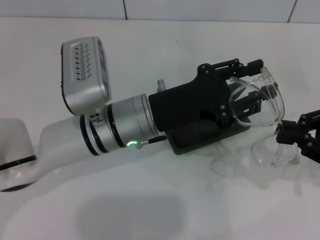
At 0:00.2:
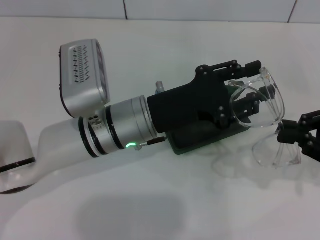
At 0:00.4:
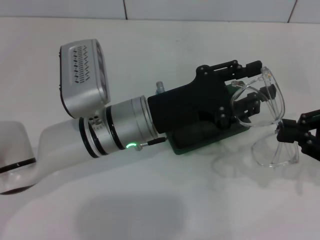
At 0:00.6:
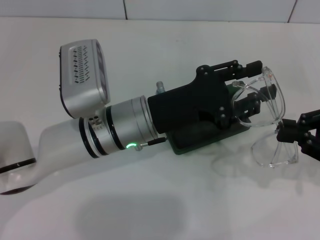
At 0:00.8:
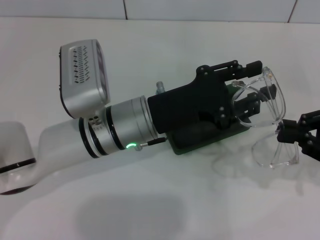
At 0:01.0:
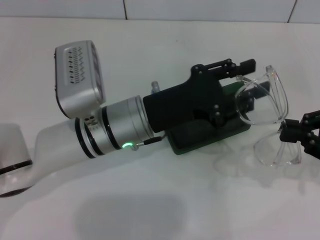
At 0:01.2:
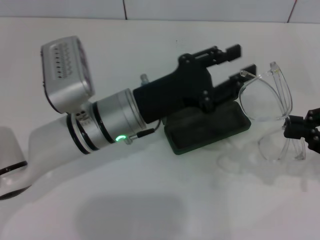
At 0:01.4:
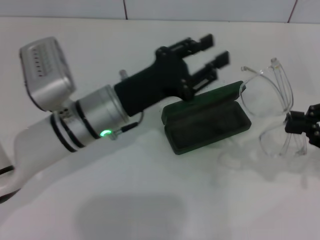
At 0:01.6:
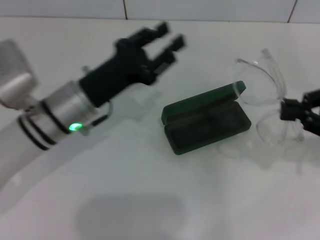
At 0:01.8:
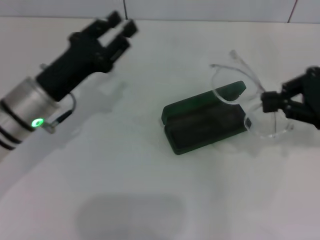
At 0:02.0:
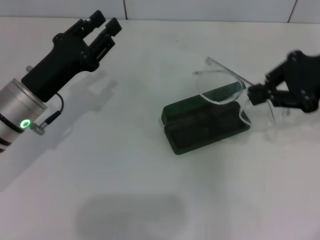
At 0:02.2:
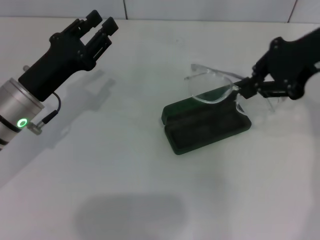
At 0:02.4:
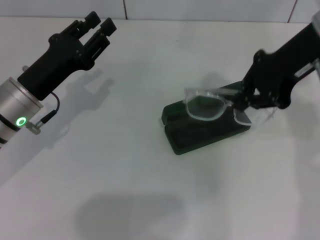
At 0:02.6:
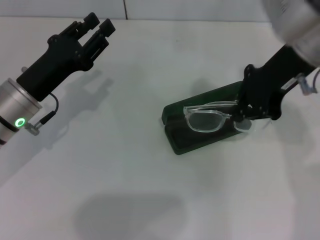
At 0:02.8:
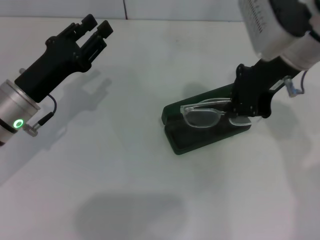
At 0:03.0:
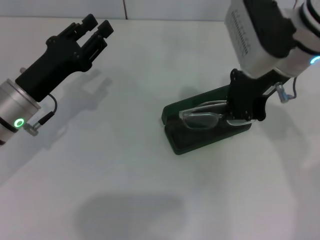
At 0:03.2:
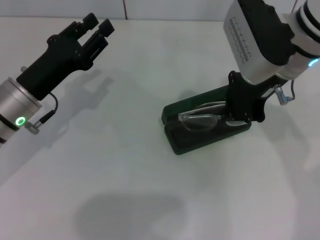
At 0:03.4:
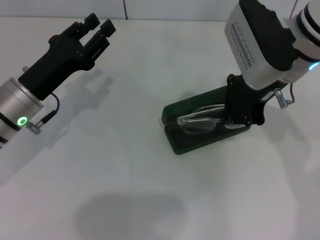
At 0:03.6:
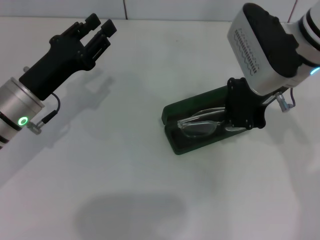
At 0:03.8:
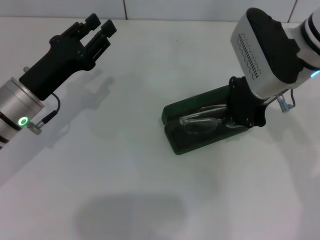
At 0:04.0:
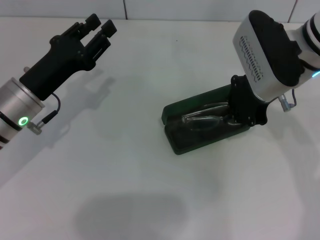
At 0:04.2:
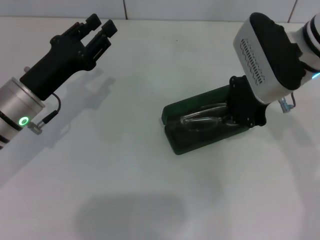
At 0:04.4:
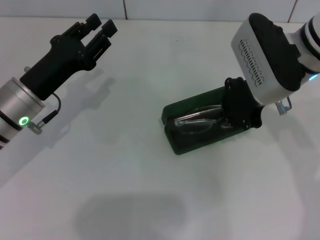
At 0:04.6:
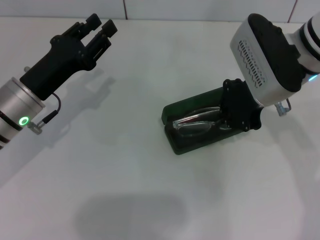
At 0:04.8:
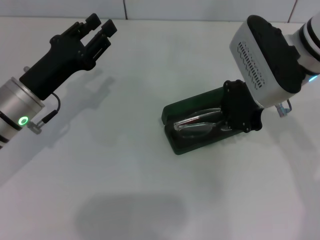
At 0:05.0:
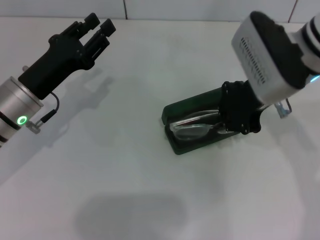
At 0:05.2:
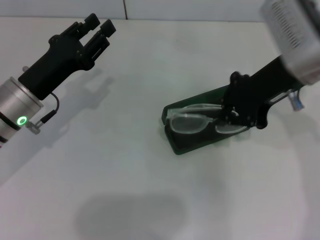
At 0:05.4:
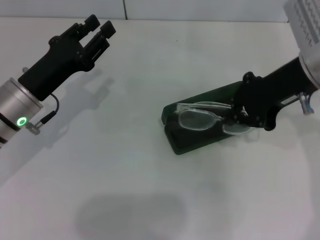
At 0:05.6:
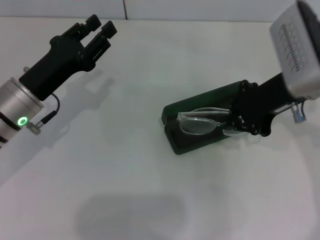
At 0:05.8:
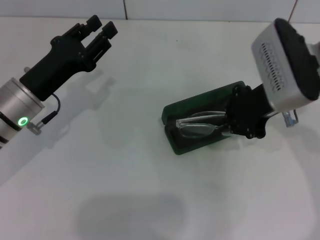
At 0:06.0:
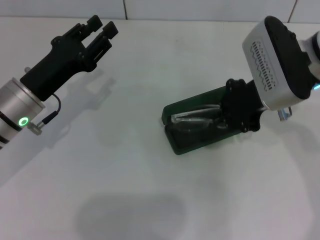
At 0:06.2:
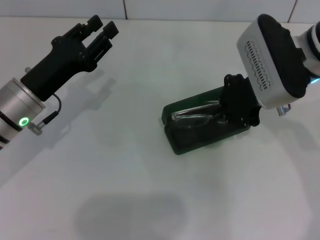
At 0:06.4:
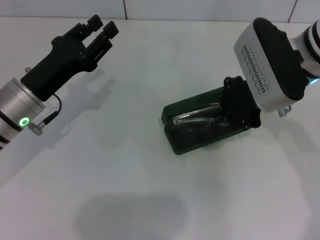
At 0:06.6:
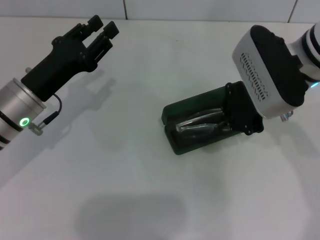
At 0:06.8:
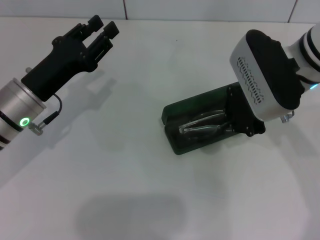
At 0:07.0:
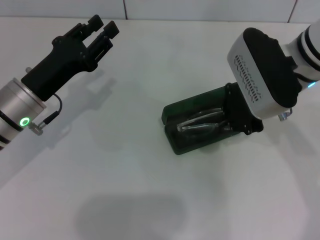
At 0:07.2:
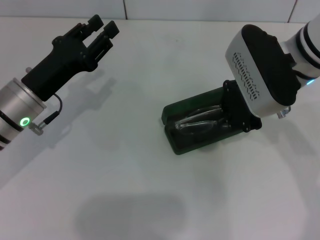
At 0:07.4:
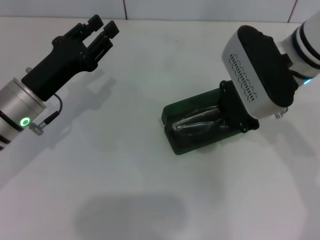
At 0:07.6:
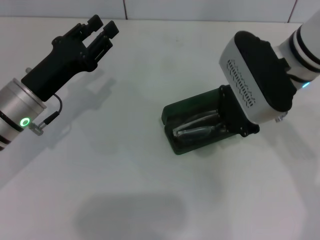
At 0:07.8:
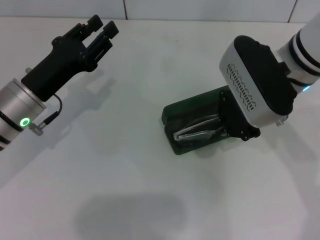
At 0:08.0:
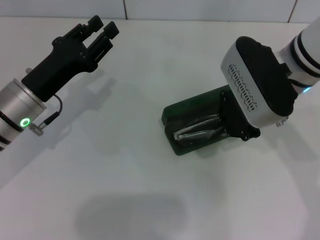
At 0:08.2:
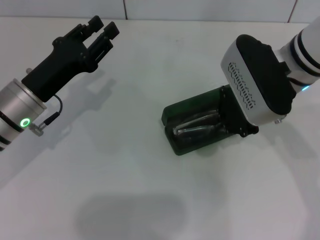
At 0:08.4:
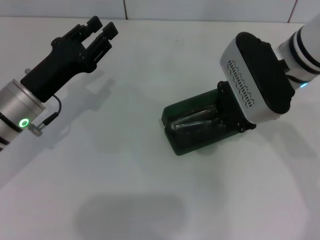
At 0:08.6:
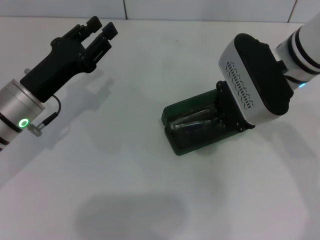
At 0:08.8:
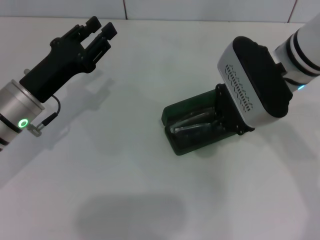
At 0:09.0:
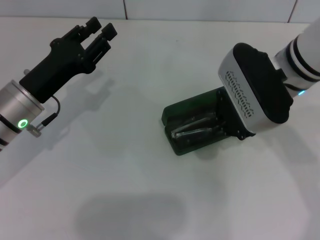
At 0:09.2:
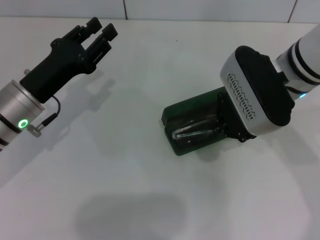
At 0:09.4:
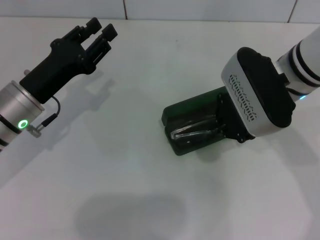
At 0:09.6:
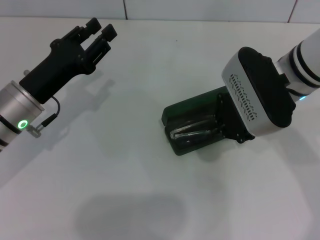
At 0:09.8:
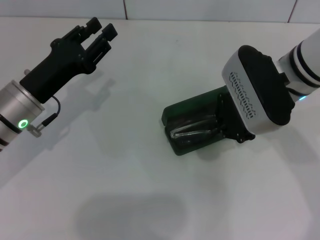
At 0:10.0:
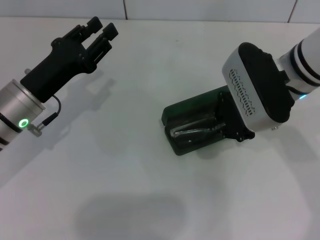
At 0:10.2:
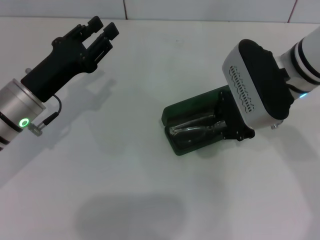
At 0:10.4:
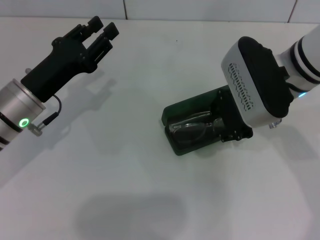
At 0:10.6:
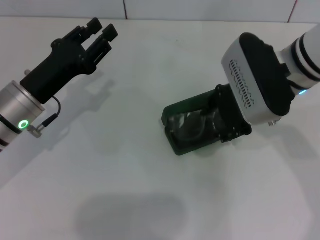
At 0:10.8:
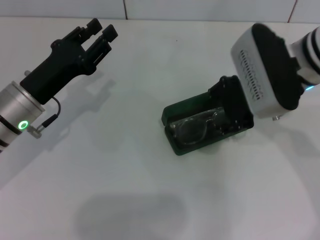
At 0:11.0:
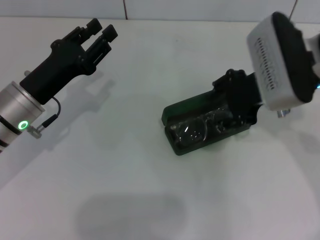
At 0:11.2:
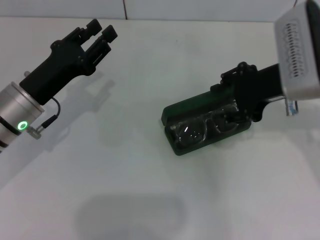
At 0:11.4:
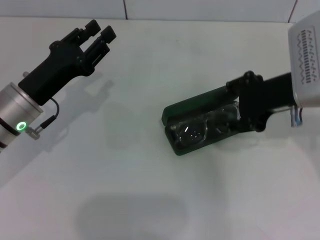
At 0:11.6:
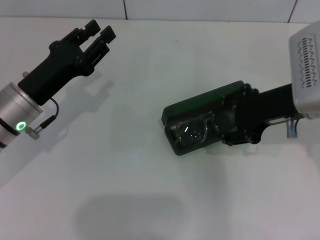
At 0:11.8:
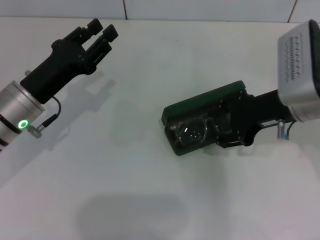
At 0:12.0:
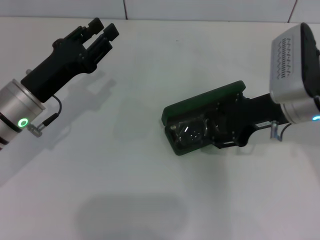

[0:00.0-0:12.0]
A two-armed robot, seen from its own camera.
0:00.0 to 0:01.6: The left gripper goes about 10 cm to the left.
0:01.6 to 0:03.0: The right gripper is displaced to the left and forward by approximately 20 cm; the left gripper shifts roughly 5 cm to the left.
0:03.0 to 0:07.6: There are only small adjustments of the grippers.
0:07.6 to 0:09.0: Neither gripper changes place.
0:09.0 to 0:10.4: The grippers stay close to where they were, moving slightly.
0:10.4 to 0:12.0: The right gripper changes place by about 5 cm, and opens up.

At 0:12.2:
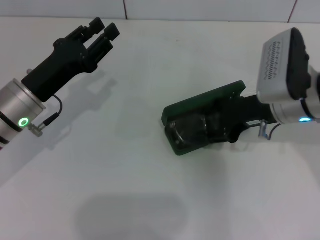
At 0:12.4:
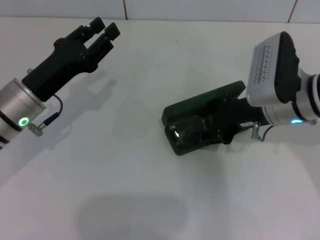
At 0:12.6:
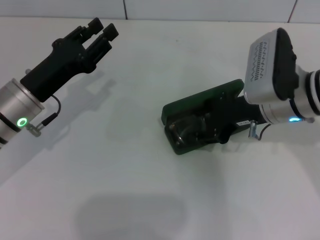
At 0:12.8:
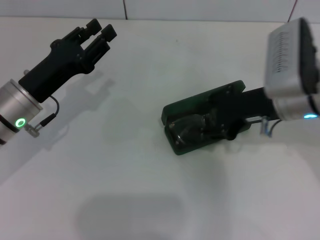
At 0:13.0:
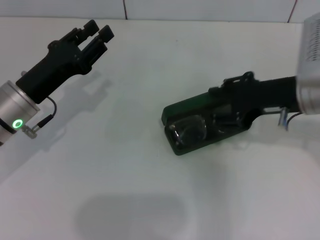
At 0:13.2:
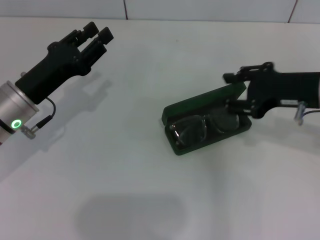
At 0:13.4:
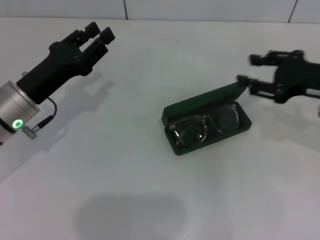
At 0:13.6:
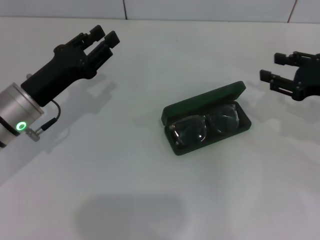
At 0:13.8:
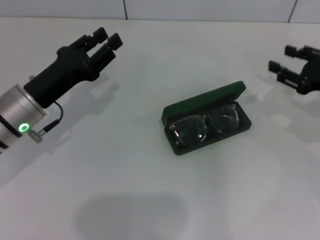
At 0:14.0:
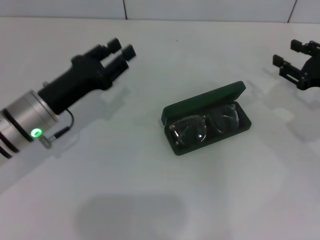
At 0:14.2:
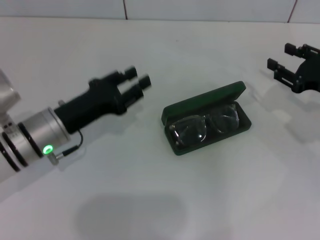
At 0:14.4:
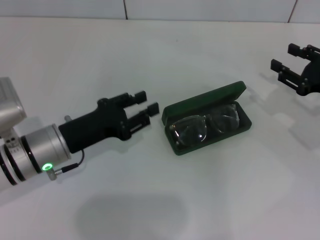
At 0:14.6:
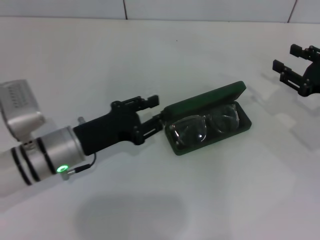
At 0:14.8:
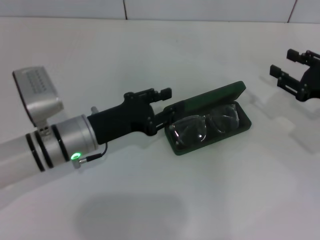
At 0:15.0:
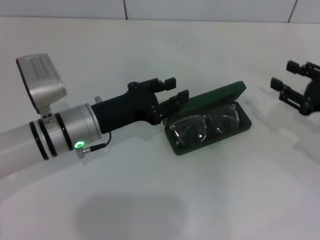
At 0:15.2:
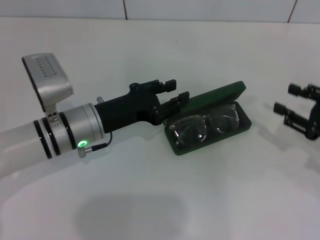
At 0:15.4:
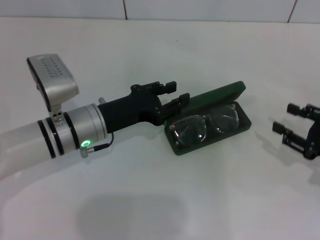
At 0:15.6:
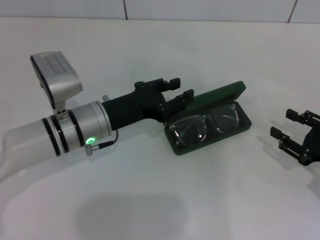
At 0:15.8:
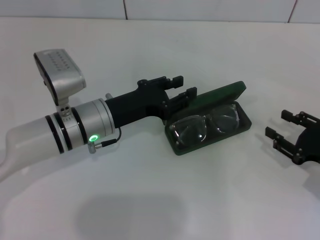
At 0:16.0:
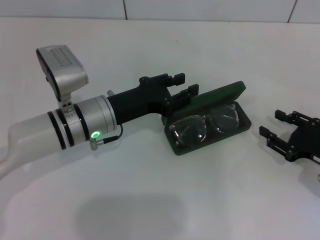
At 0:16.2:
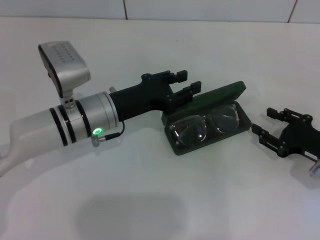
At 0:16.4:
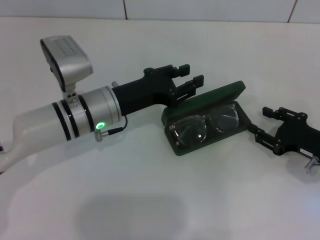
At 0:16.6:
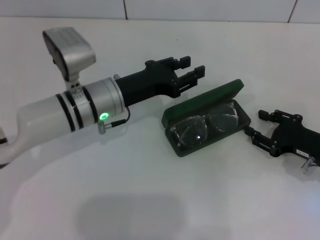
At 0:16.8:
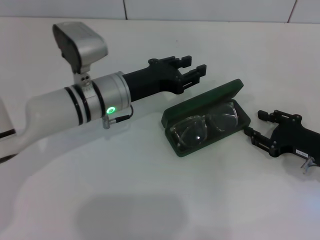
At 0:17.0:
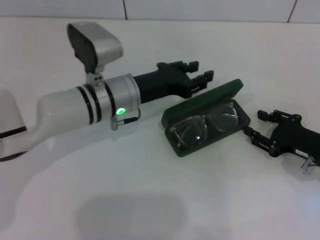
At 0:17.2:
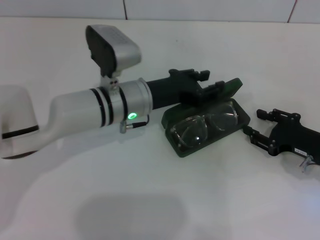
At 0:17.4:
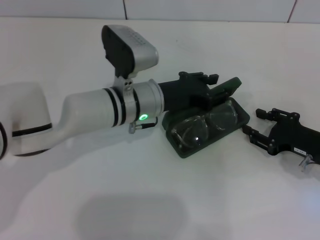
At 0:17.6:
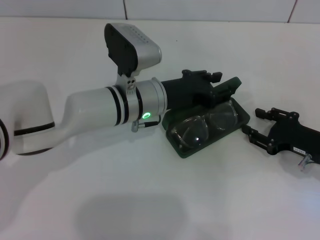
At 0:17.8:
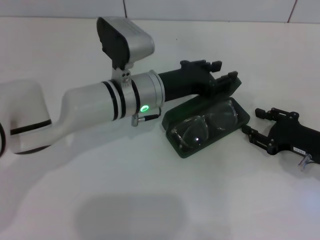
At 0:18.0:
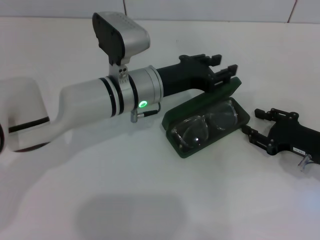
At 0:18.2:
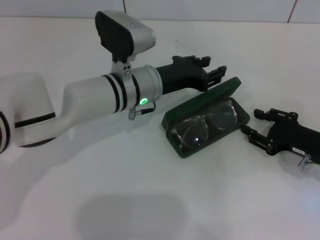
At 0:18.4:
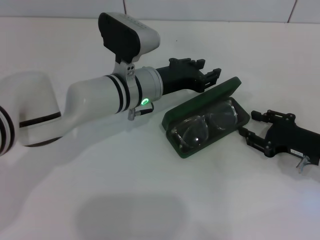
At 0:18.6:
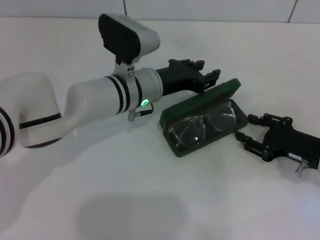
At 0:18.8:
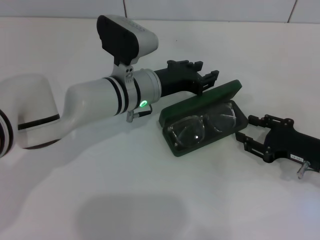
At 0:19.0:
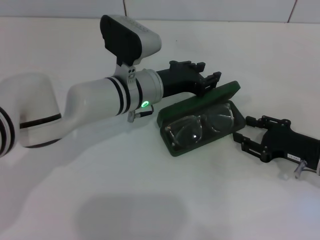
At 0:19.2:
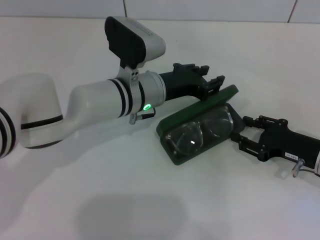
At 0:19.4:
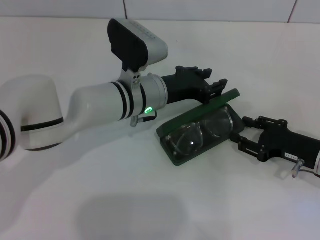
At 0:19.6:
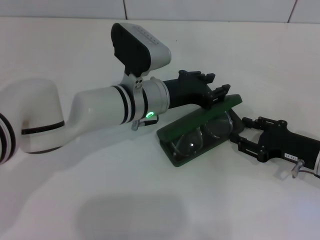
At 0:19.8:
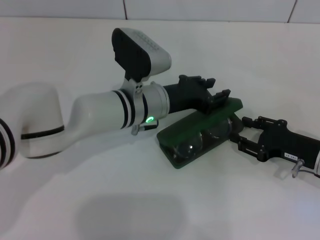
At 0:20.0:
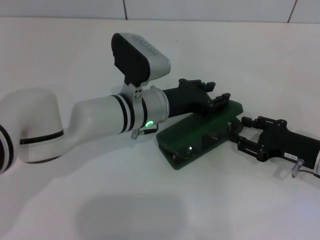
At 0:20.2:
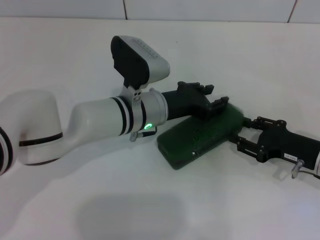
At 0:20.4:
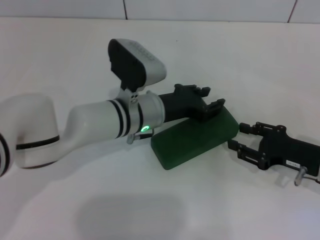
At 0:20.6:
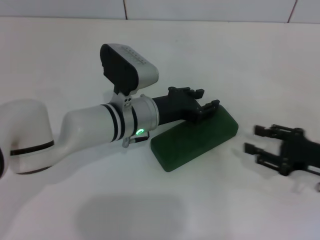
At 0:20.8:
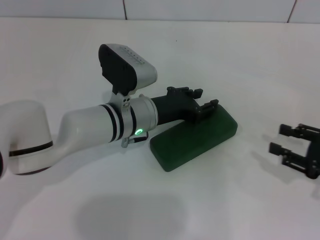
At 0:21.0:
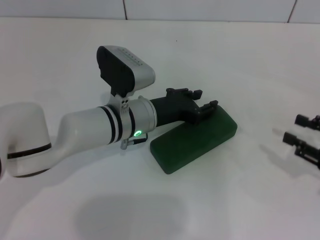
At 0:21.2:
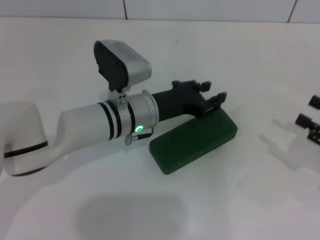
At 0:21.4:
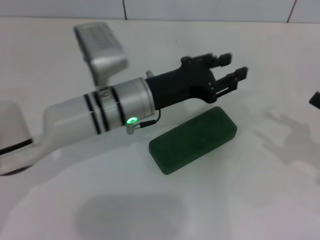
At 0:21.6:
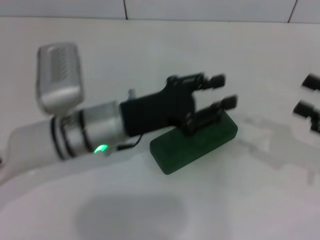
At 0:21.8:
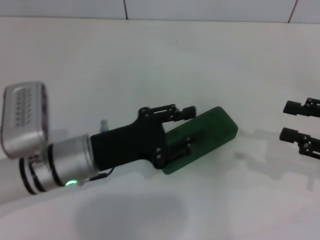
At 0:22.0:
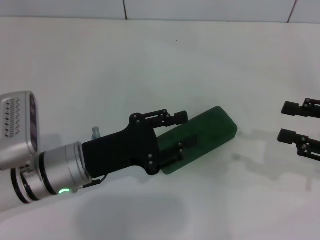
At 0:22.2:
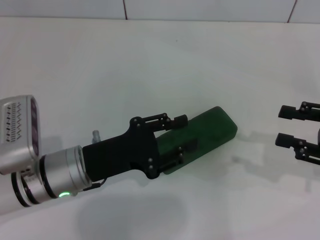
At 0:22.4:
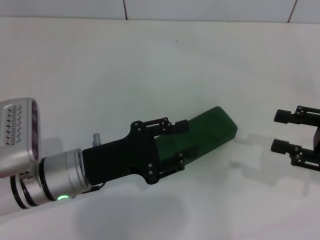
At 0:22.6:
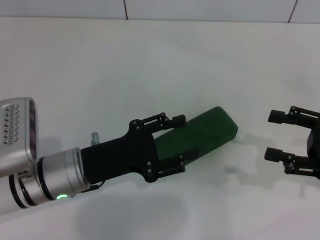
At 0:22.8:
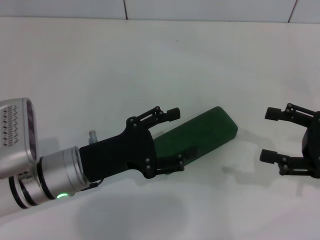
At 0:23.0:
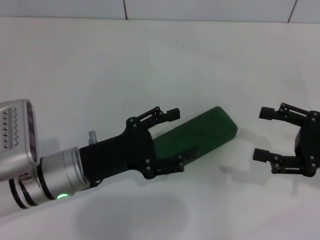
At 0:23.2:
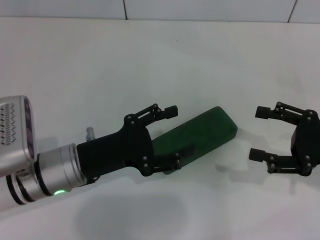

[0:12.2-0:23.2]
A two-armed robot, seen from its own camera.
Step, 0:13.2 to 0:20.8: Close the glasses case with your left hand.
0:12.2 to 0:13.8: The right gripper heads to the right, covering roughly 15 cm.
0:13.8 to 0:15.4: The right gripper is displaced backward and downward by about 10 cm. Meanwhile the left gripper moves to the right, approximately 5 cm.
0:15.4 to 0:17.0: The left gripper travels to the right by some 5 cm. Meanwhile the right gripper moves approximately 5 cm.
0:17.0 to 0:20.0: There are only small adjustments of the grippers.
0:20.0 to 0:21.6: The right gripper travels upward and to the right by approximately 10 cm; the left gripper shifts some 10 cm to the left and backward.
0:21.6 to 0:23.2: The left gripper heads to the left, covering about 5 cm, and opens.
